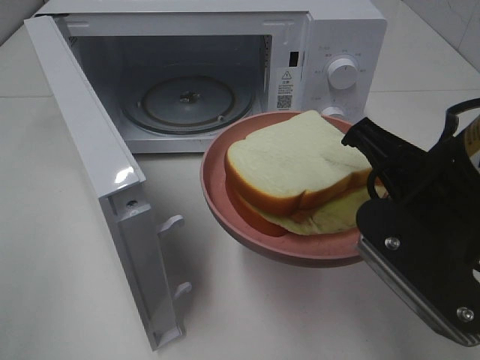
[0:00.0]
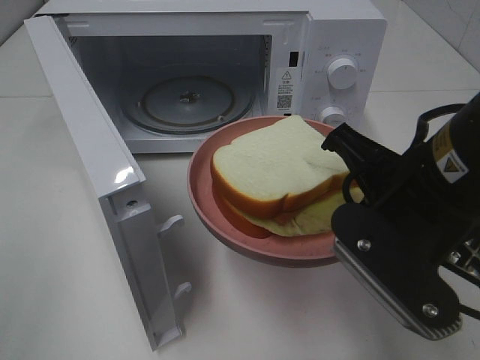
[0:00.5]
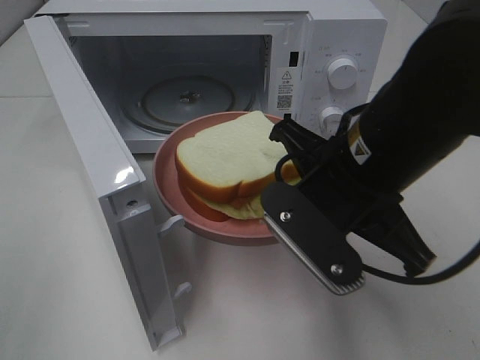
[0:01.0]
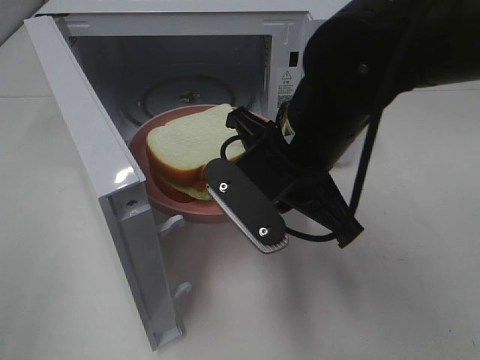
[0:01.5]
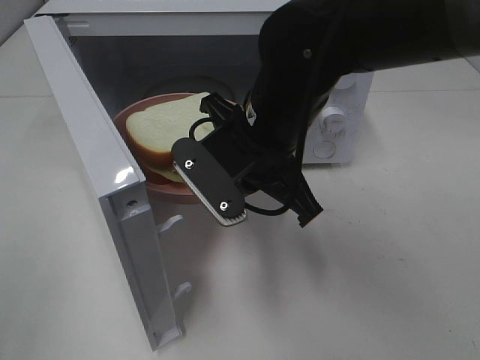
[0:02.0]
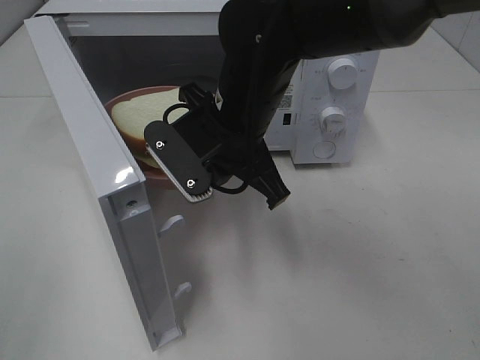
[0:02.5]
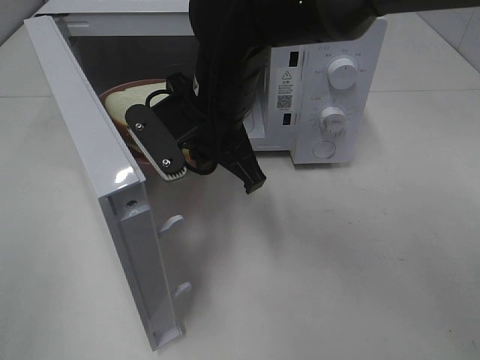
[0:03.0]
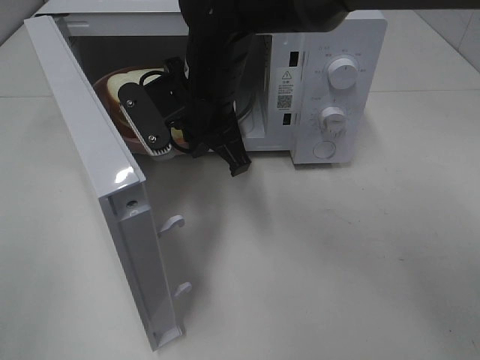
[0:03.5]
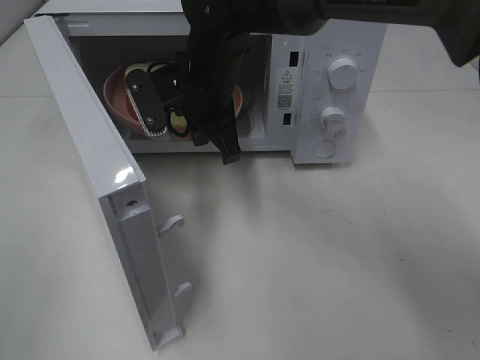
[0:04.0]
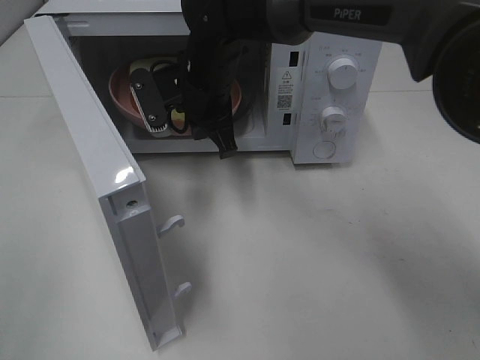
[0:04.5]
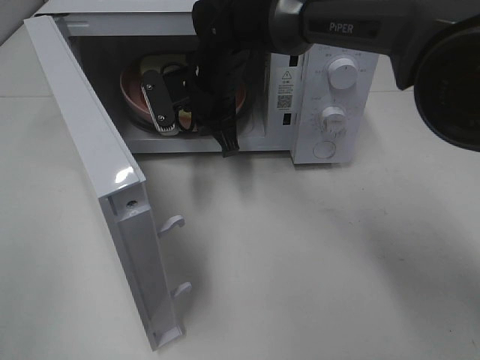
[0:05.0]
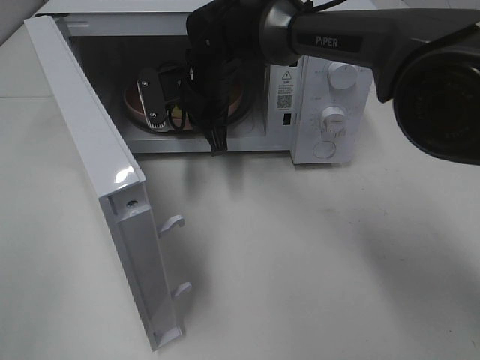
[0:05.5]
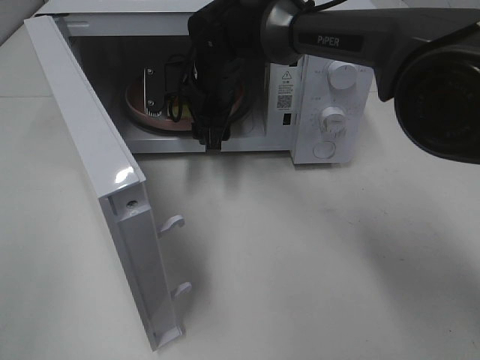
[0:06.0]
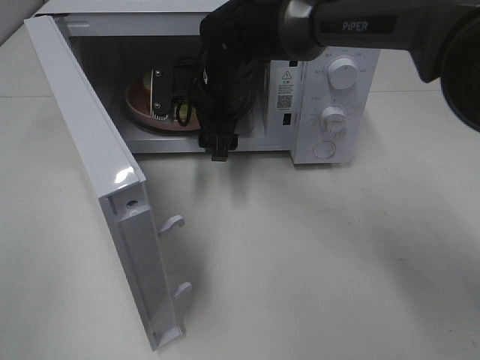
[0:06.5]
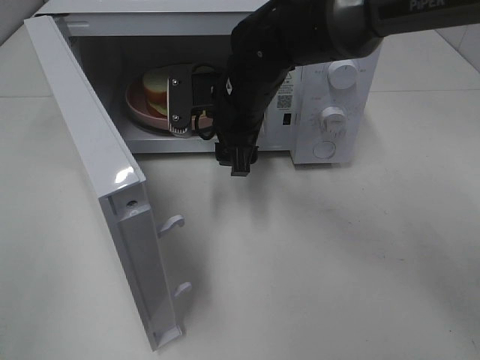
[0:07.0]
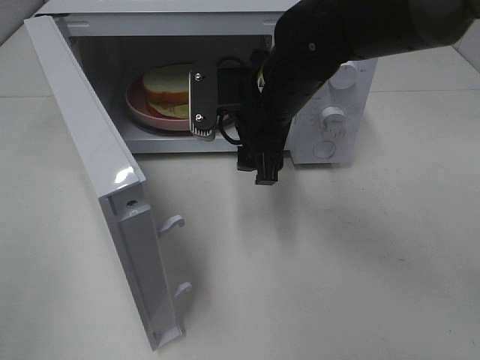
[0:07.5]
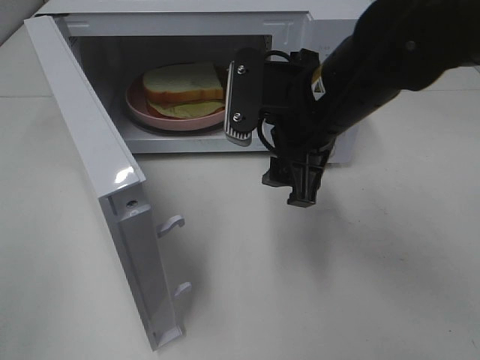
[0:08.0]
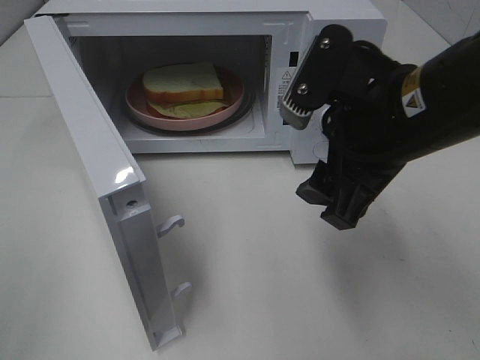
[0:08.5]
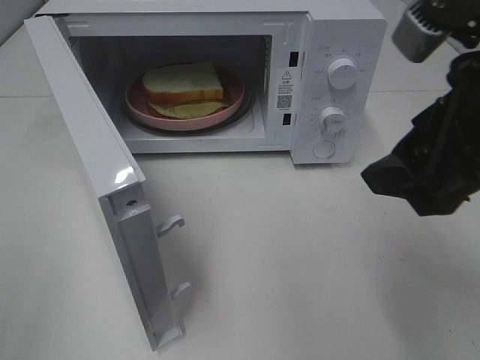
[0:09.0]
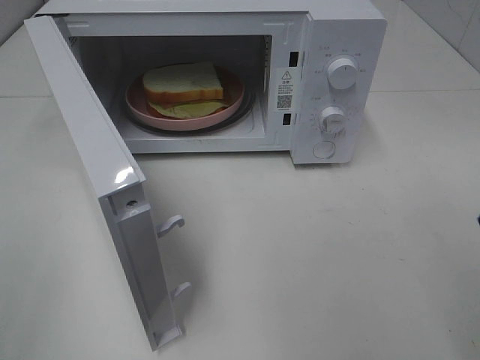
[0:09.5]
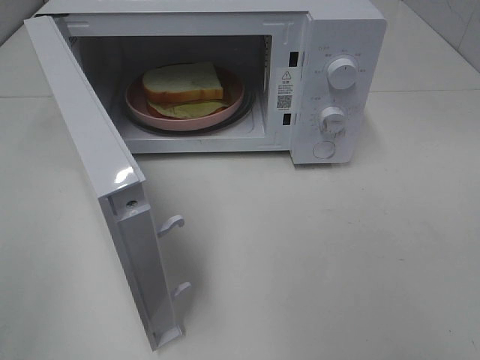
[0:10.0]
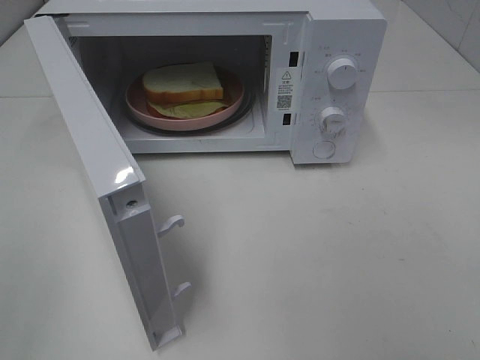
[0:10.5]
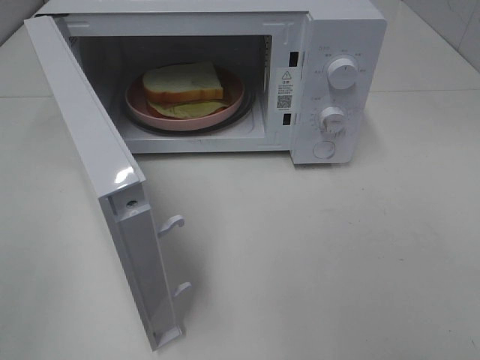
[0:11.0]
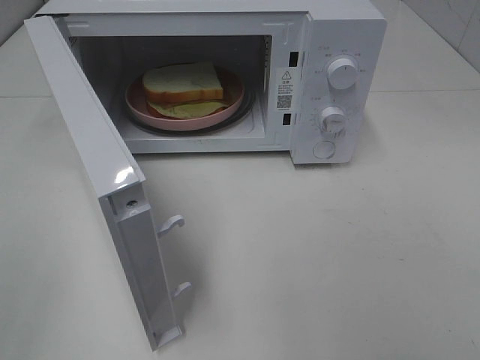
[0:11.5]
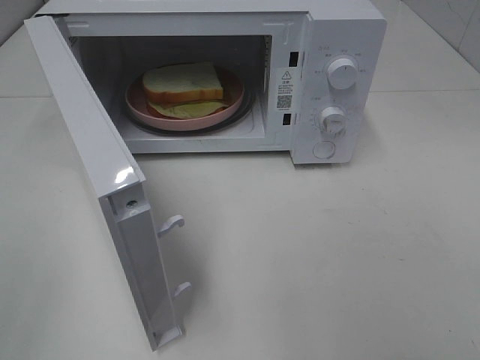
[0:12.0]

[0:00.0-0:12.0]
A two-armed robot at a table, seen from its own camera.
Task of the whole recording: Heat Sandwich.
Step, 0.0 to 6.5 s: Right hand: place the plate in the microwave.
0.0 to 2.0 s: The right gripper travels to the left and forward by some 15 cm.
2.0 to 4.0 s: The right gripper moves forward and to the left, some 10 cm.
4.0 to 6.0 s: The right gripper is displaced forward by about 5 cm, and opens up.
6.0 to 8.0 s: The right gripper shifts roughly 20 cm backward and to the right.
8.0 to 10.0 s: The right gripper heads backward, to the right and upward, covering some 30 cm.

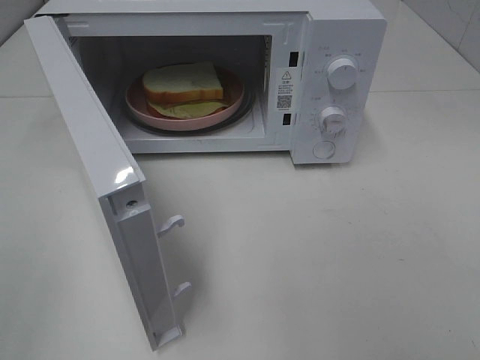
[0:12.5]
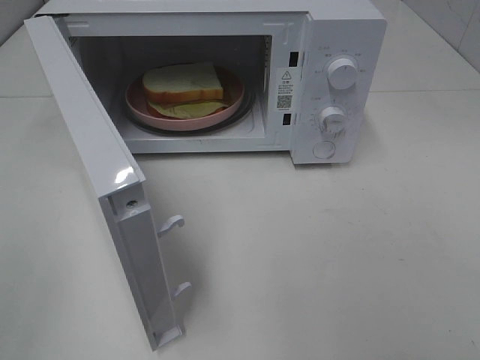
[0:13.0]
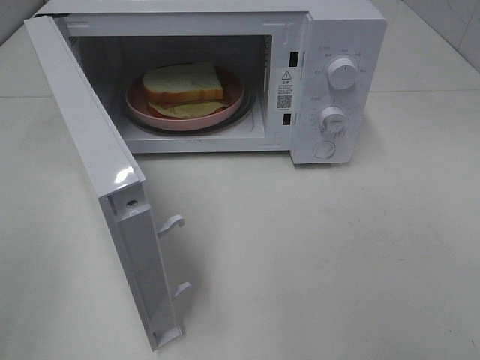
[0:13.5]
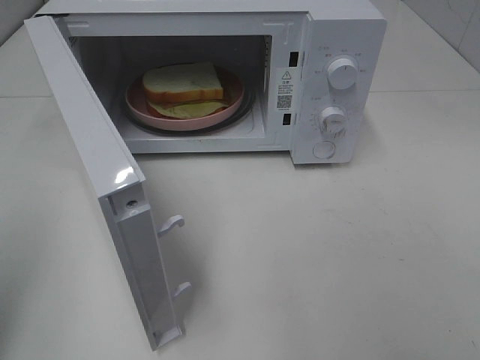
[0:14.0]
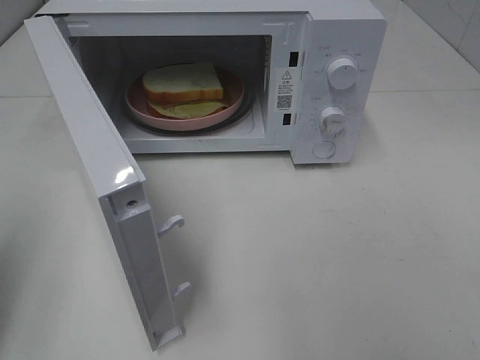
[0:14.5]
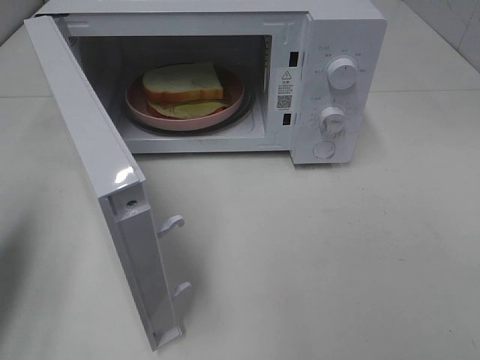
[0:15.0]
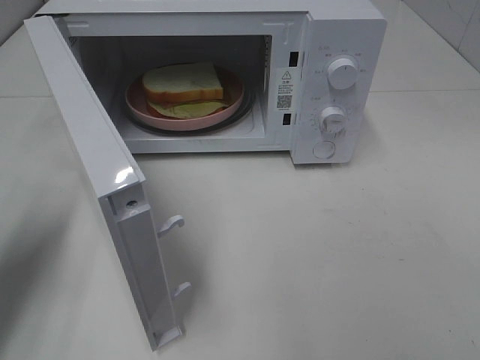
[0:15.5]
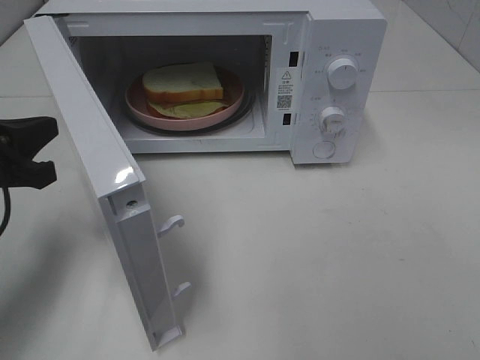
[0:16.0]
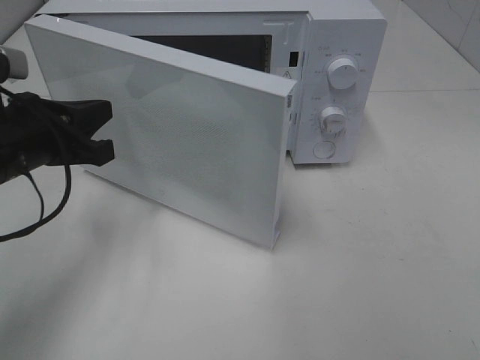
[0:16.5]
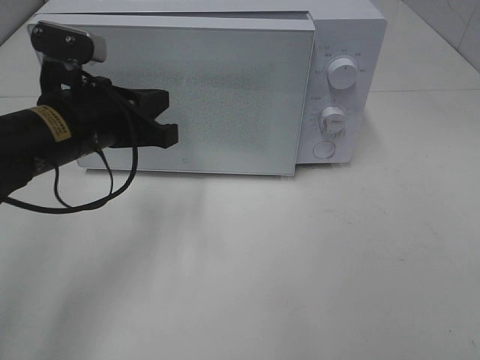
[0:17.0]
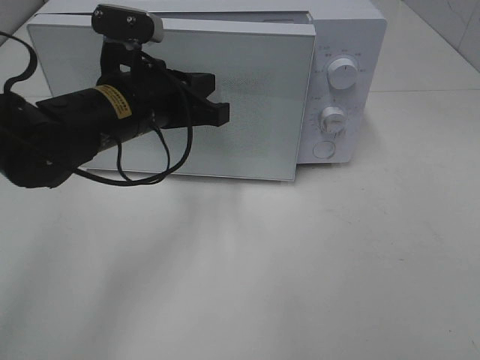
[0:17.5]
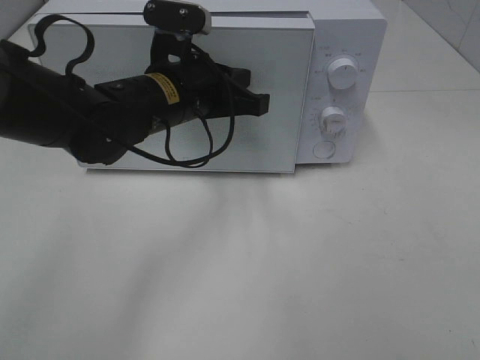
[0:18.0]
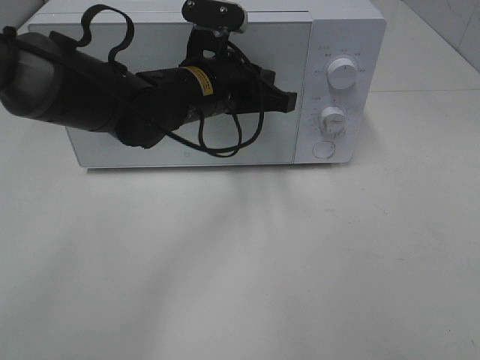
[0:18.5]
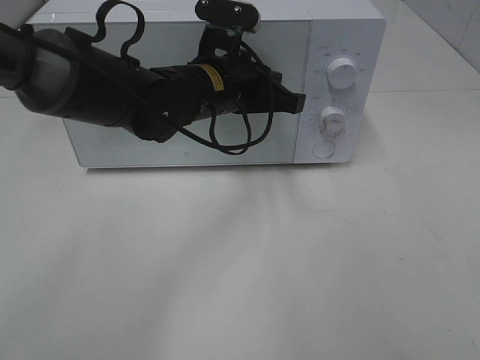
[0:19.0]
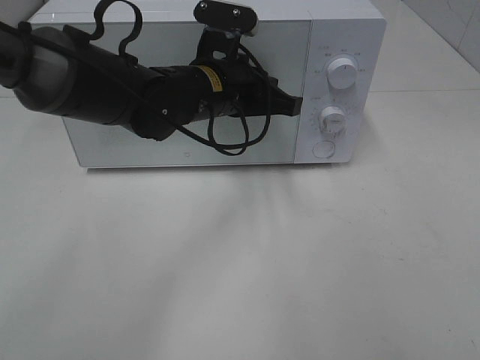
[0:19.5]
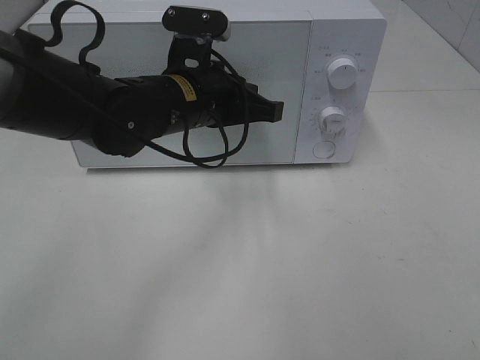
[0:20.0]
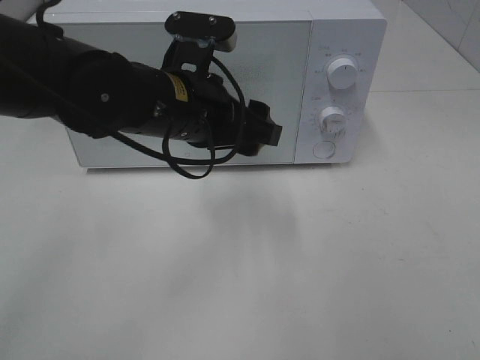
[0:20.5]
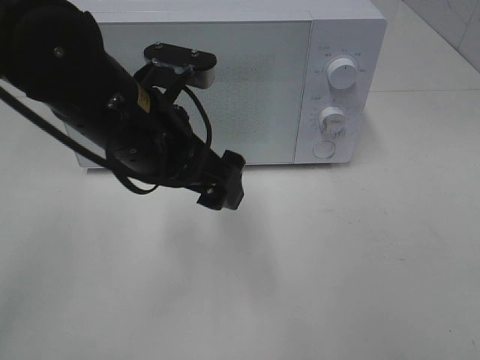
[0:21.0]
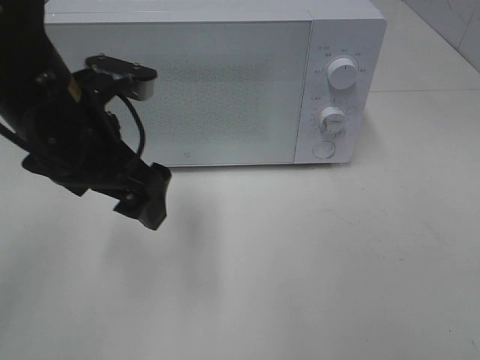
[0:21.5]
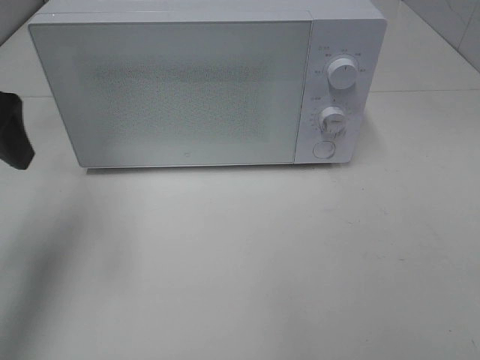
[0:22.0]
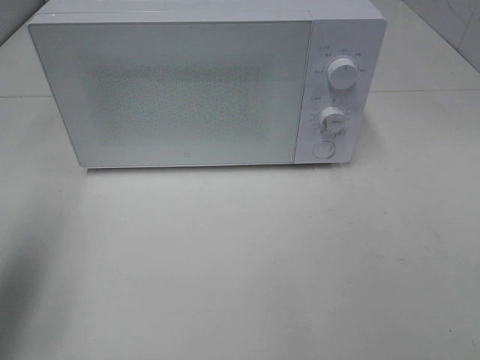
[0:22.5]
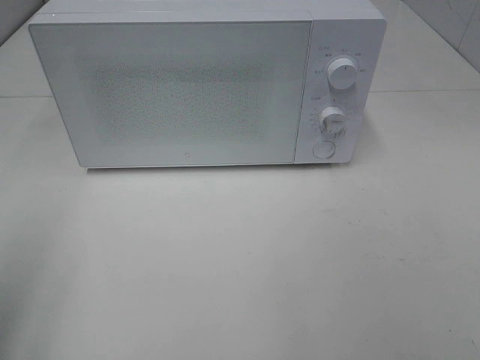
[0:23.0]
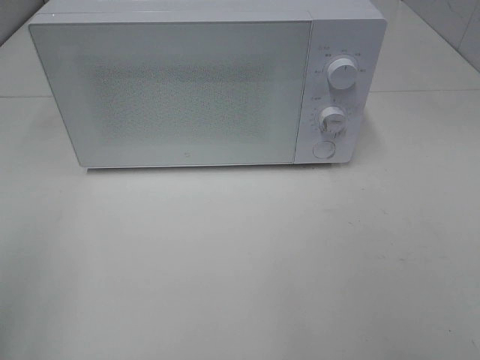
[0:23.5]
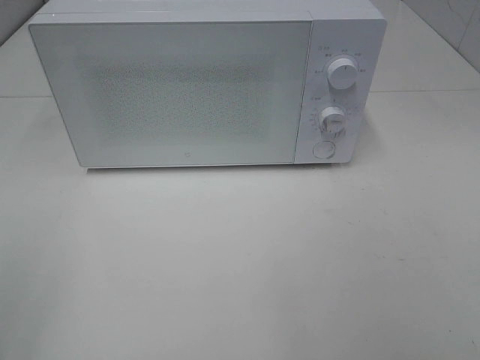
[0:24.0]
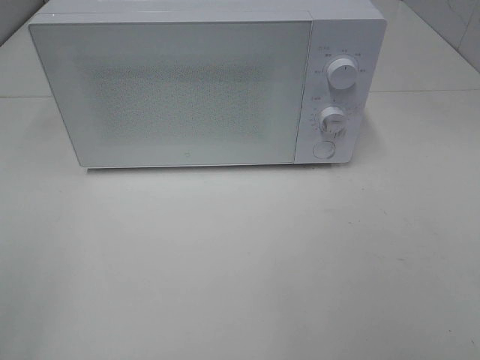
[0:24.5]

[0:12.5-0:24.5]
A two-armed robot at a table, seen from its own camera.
Task of the whole recording: Heat Sandwich.
Step, 12.5 to 19.5 s: Left hand: close the microwave door.
12.5 to 14.5 s: The left gripper shifts some 15 cm forward, and closes up.
14.5 to 16.5 s: The left gripper heads forward, to the right and downward, covering about 20 cm.
16.5 to 18.5 s: The left gripper travels to the right and forward by approximately 20 cm.
18.5 to 20.5 s: The left gripper shifts roughly 5 cm backward, and opens.
20.5 to 22.5 s: The left gripper shifts roughly 30 cm to the left and backward.
22.5 to 24.5 s: The left gripper goes about 15 cm backward.

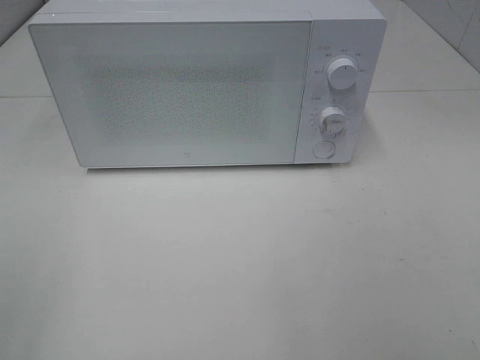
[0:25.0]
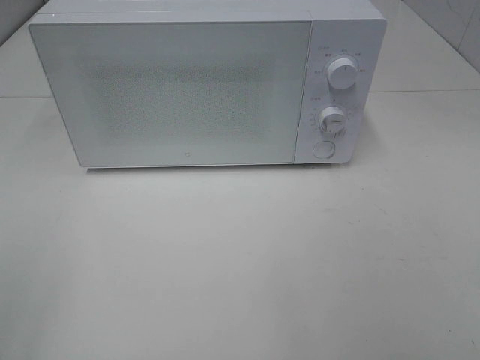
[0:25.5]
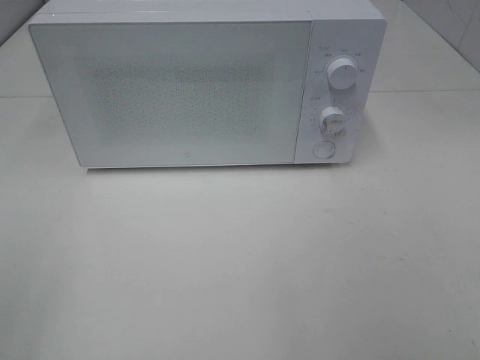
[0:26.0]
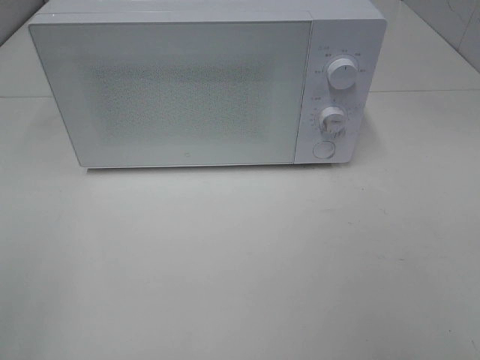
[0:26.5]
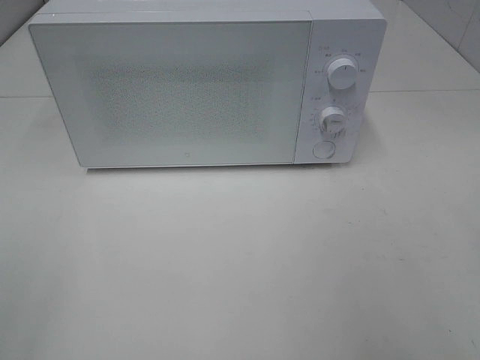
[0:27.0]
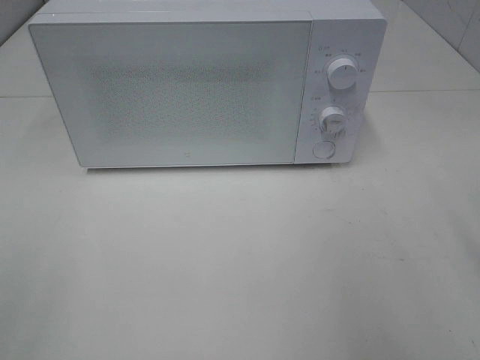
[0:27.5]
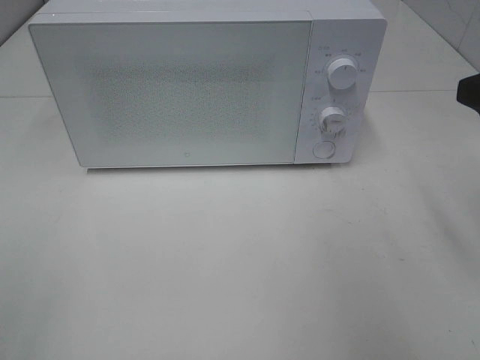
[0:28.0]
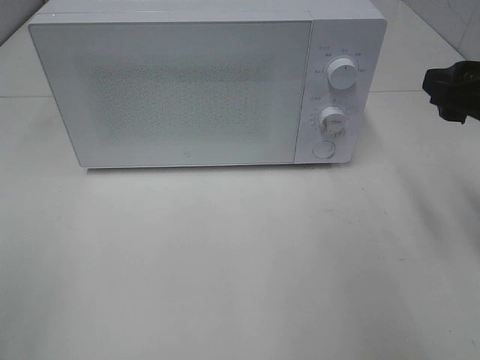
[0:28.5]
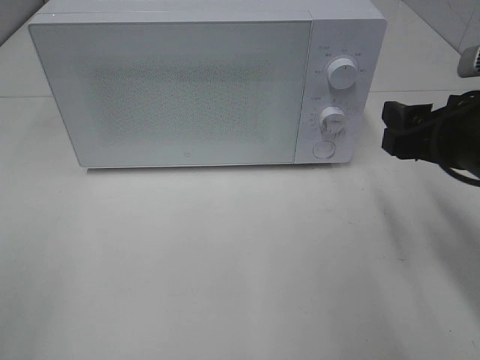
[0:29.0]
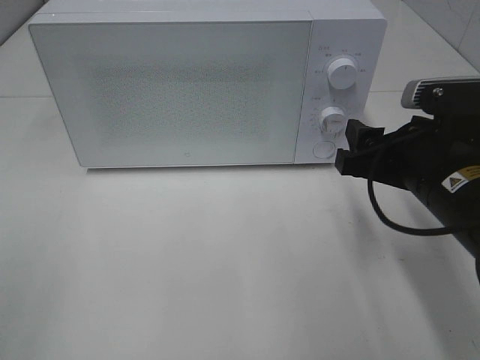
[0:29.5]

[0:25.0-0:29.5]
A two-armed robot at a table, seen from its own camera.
Task of the whole recording: Heat Sandwich.
27.0 to 29.5 s: The right gripper shifts approximately 20 cm downward, forward and to the left.
